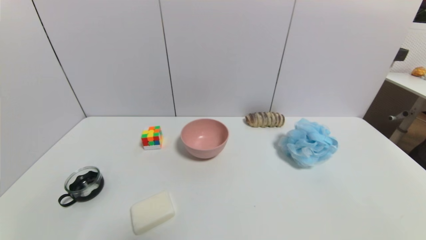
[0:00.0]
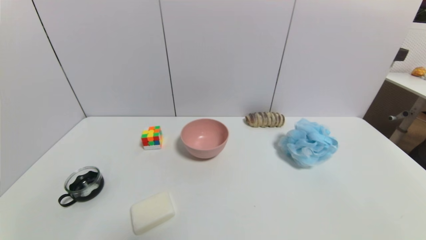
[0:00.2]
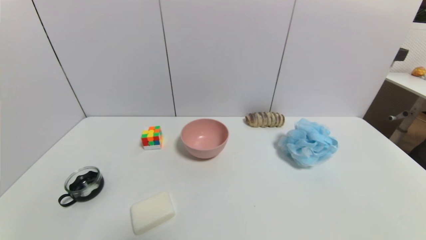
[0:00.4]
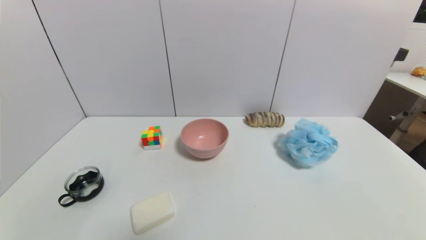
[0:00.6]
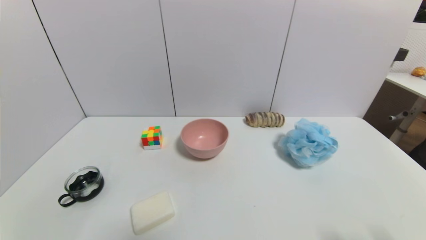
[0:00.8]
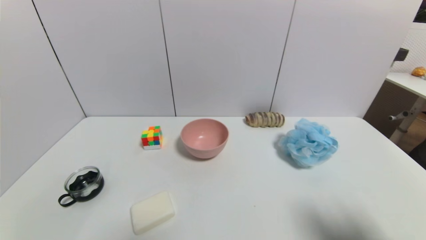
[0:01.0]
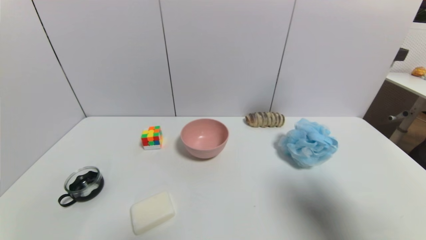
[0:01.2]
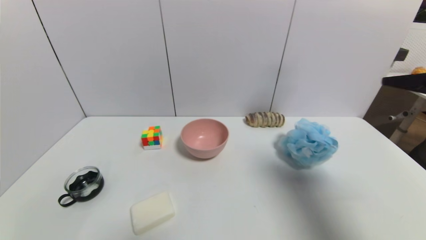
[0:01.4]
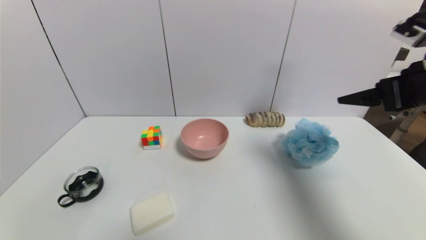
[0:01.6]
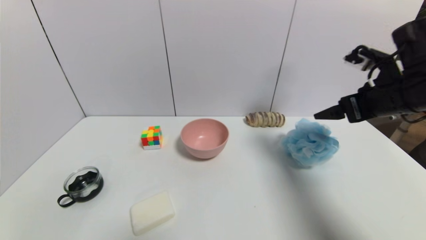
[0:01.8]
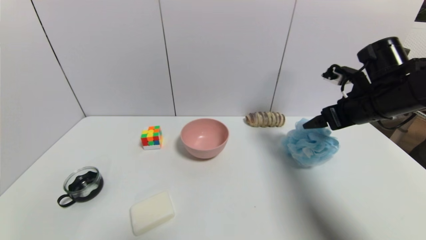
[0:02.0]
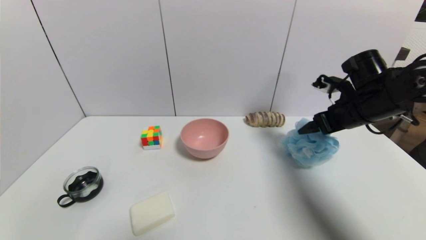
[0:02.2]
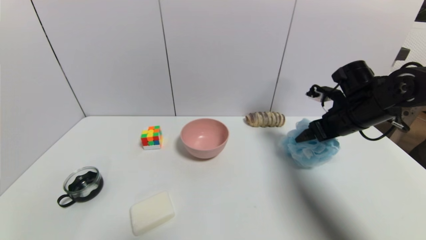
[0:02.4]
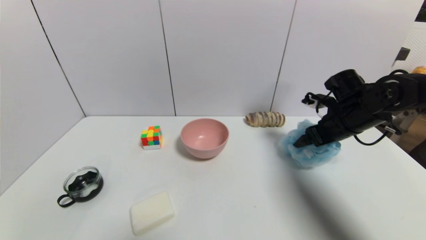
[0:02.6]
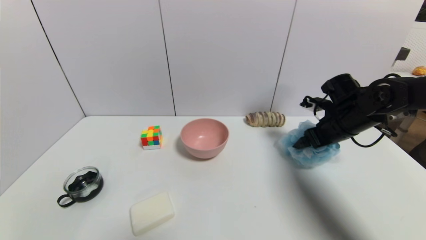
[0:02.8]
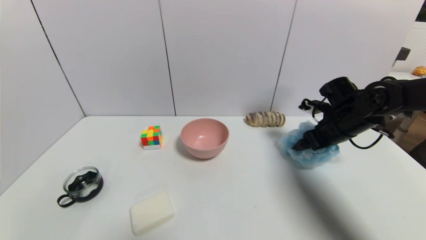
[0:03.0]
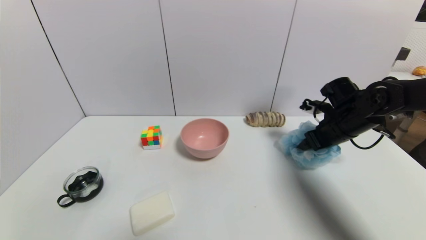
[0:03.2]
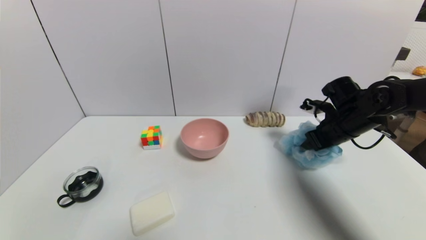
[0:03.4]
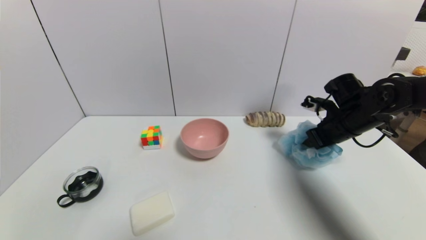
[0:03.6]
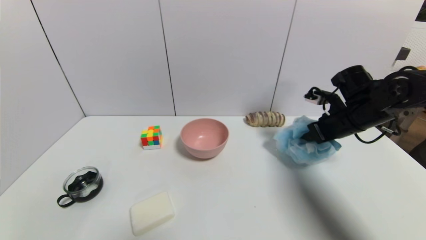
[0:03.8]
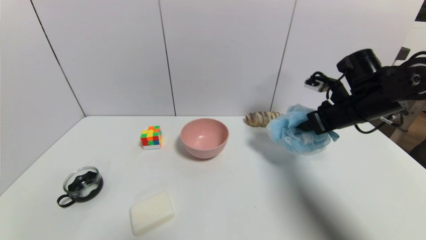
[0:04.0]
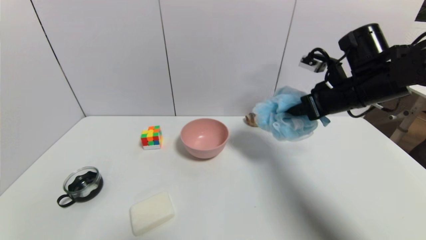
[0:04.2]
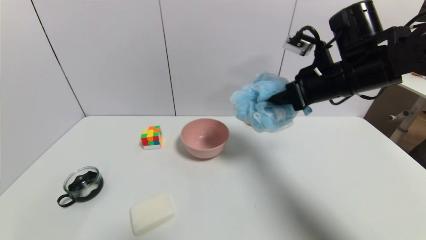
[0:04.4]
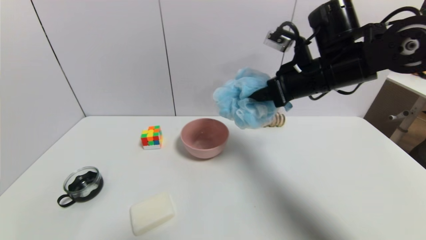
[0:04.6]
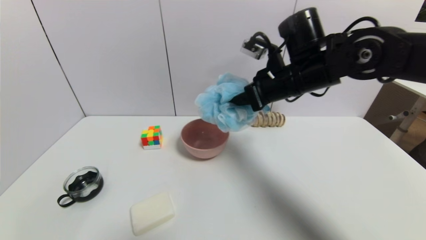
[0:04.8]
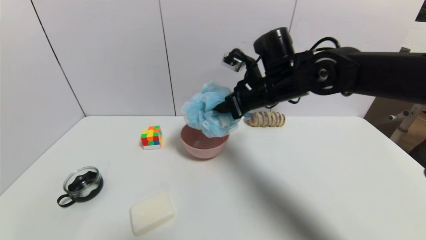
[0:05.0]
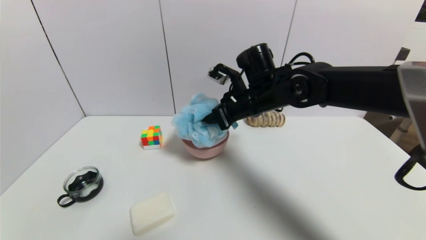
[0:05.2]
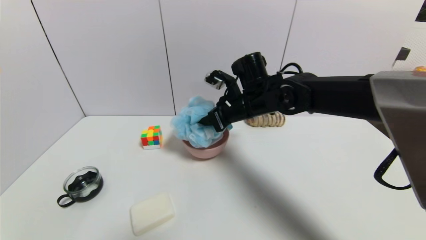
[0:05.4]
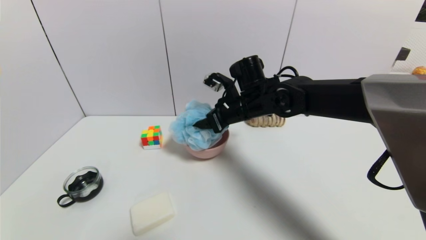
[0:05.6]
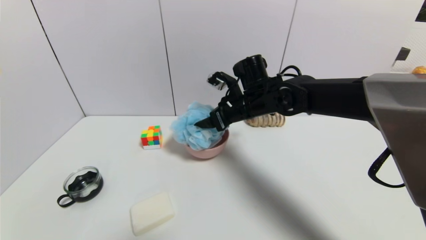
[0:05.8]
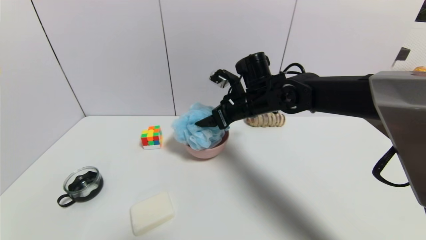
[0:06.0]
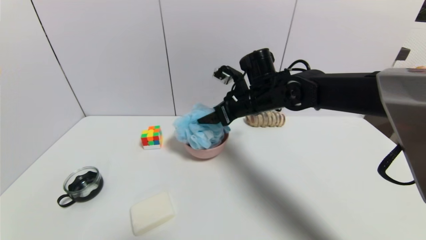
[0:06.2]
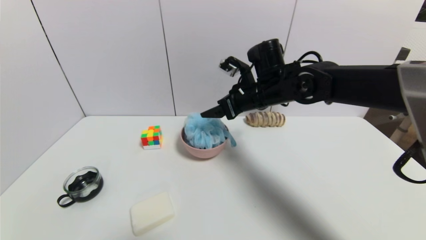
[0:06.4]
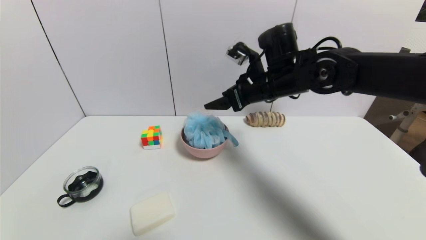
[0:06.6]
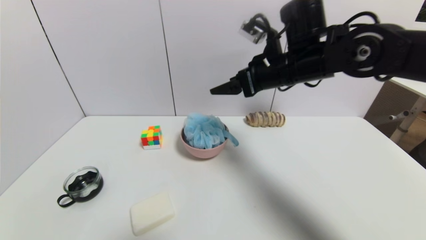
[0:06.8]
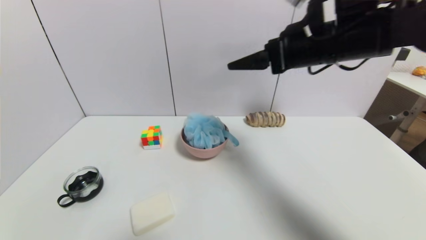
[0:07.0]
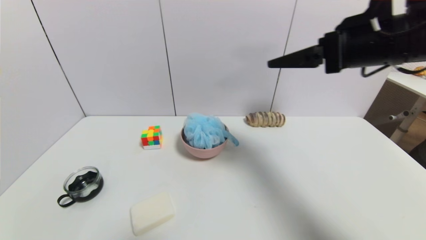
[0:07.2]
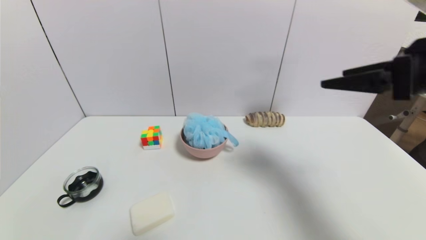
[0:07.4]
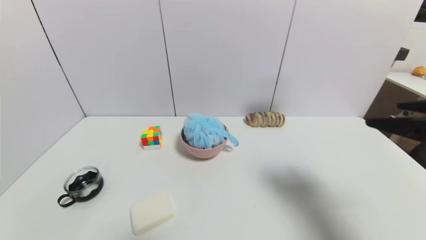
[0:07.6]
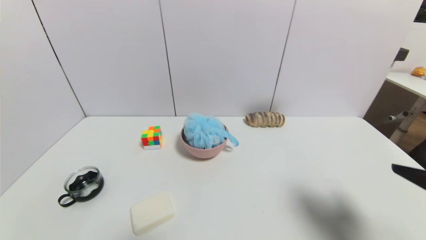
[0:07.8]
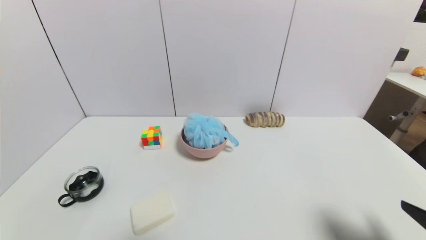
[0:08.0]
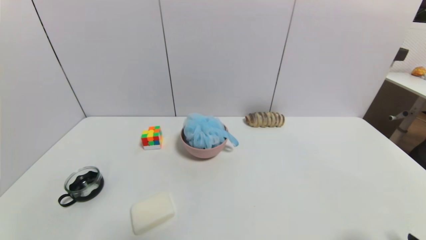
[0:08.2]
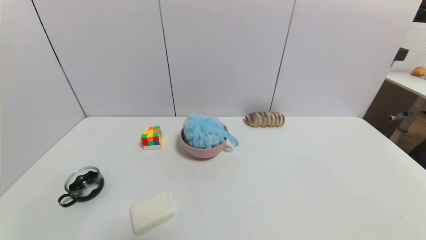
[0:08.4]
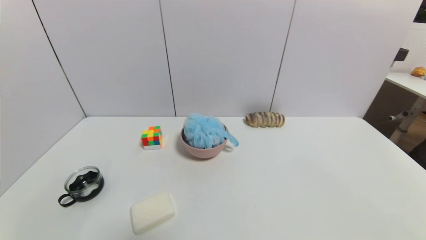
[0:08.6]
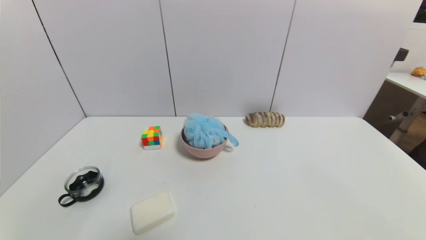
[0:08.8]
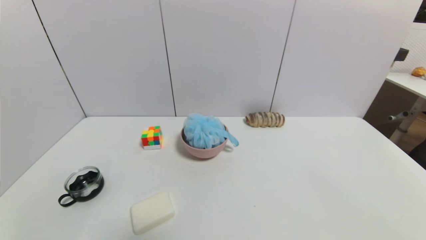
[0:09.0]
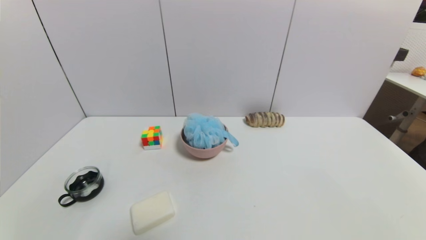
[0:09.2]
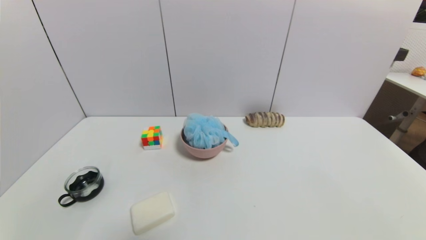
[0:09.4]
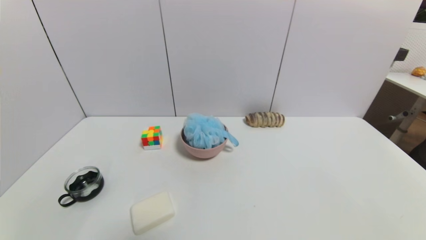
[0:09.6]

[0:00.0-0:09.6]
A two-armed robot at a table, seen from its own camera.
Task of the whole recording: use a gripper to pick the target object and place on the pink bowl.
Step, 0:00.0 to 0:03.2: Grasp the shower sphere with the right gripper.
Step, 0:03.4 to 0:06.4: Place the shower sphere on the pink bowl with the right gripper.
0:00.0 to 0:01.6: The right gripper travels forward and upward by roughly 35 cm.
0:01.6 to 0:03.2: The right gripper travels downward and forward by approximately 20 cm, and closes.
0:03.2 to 0:04.8: The right gripper goes approximately 20 cm to the left and upward, and closes its fingers.
0:04.8 to 0:06.4: The right gripper opens up.
0:06.4 to 0:08.0: The right gripper moves backward and to the right, some 40 cm.
0:08.0 to 0:09.6: The right gripper heads downward and backward, covering about 15 cm.

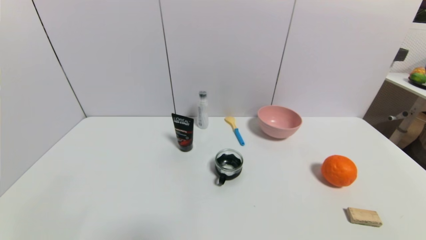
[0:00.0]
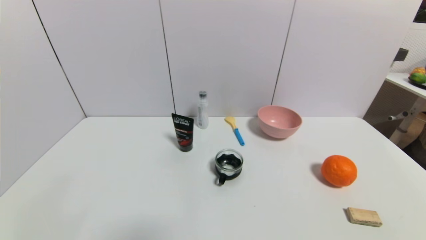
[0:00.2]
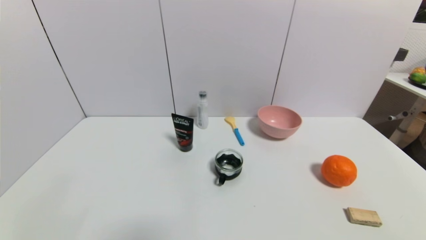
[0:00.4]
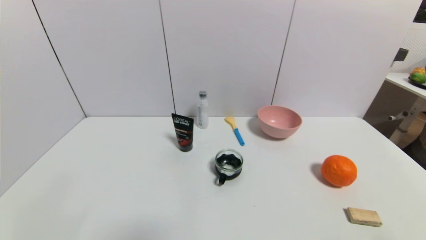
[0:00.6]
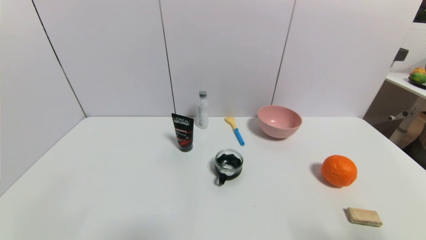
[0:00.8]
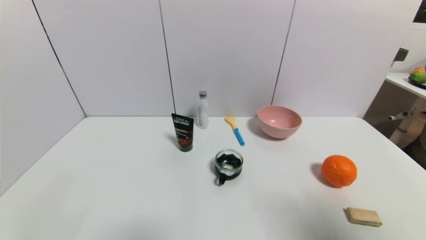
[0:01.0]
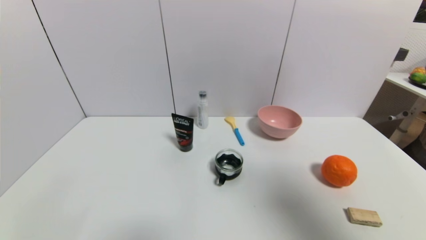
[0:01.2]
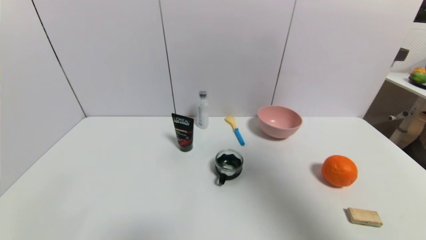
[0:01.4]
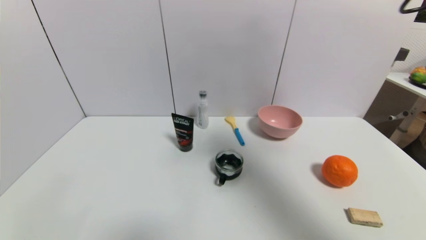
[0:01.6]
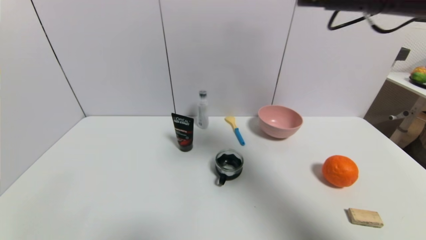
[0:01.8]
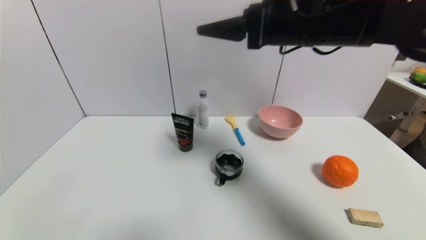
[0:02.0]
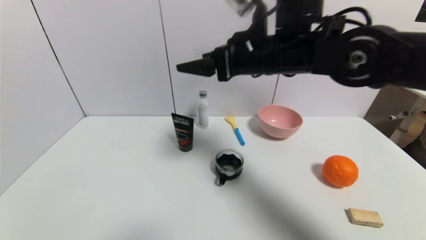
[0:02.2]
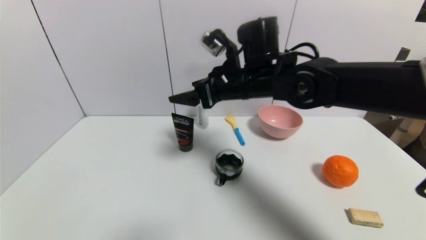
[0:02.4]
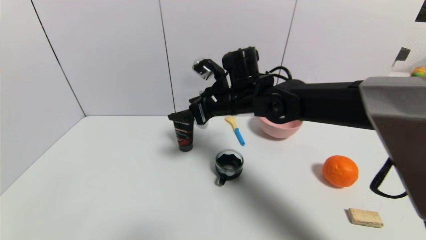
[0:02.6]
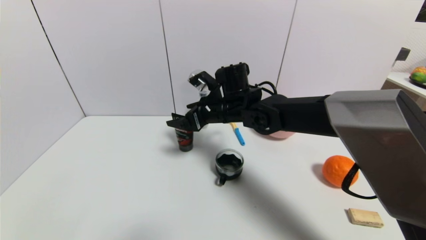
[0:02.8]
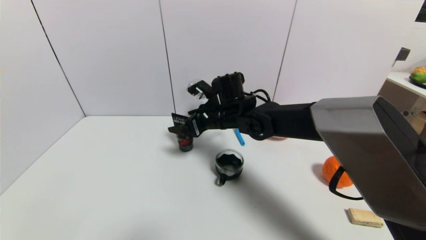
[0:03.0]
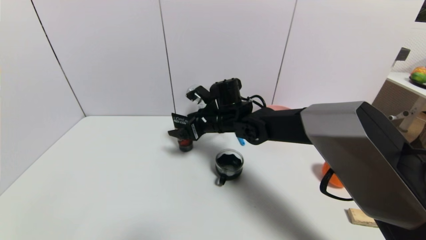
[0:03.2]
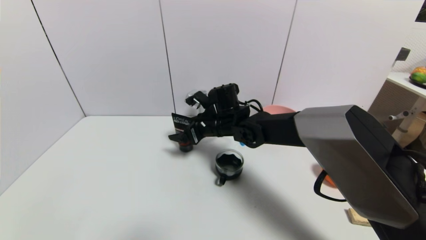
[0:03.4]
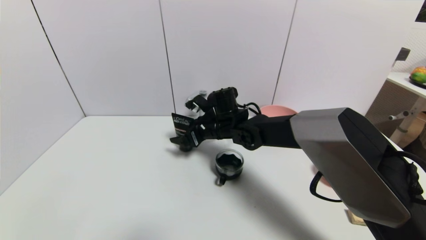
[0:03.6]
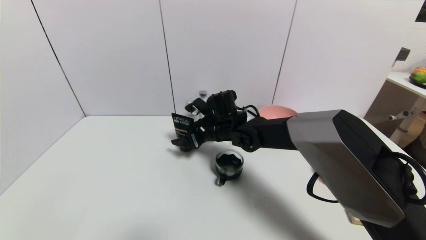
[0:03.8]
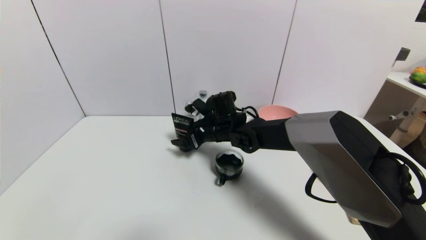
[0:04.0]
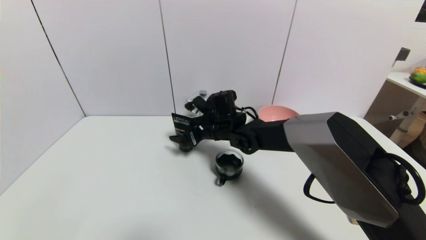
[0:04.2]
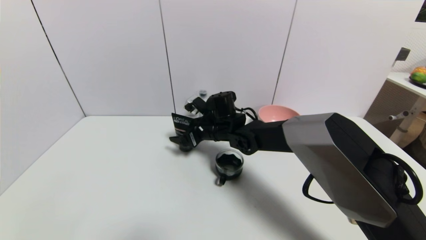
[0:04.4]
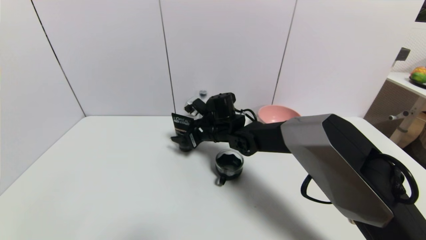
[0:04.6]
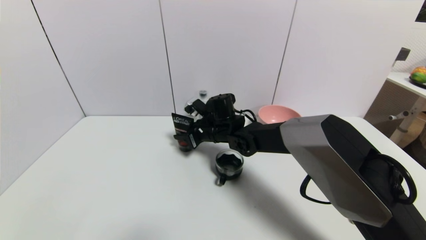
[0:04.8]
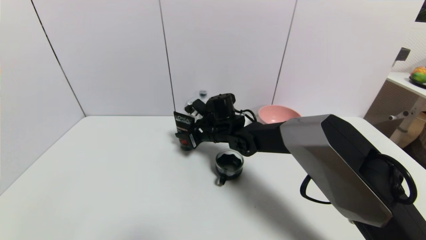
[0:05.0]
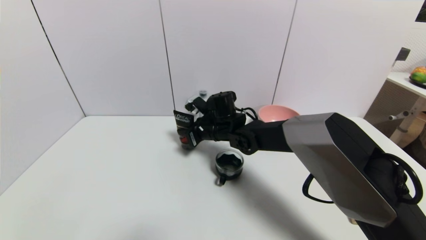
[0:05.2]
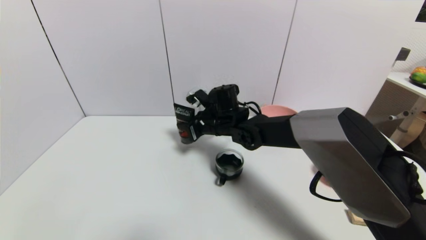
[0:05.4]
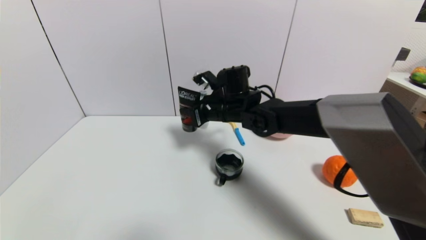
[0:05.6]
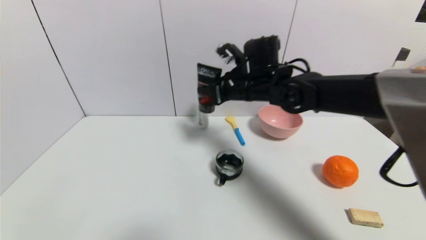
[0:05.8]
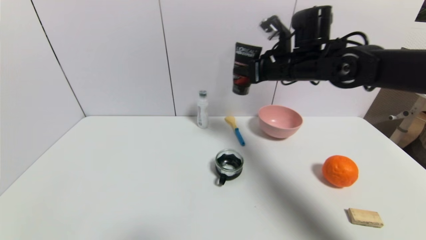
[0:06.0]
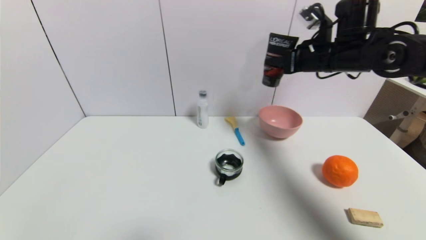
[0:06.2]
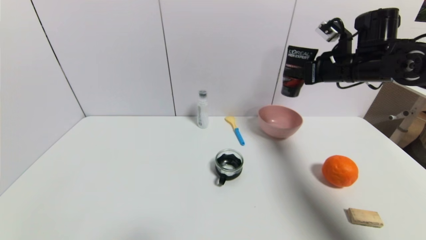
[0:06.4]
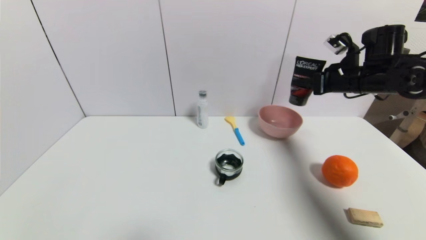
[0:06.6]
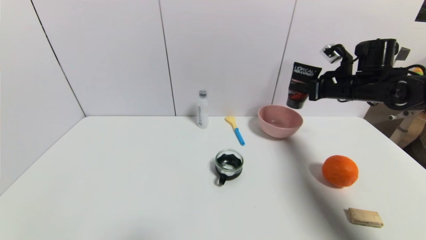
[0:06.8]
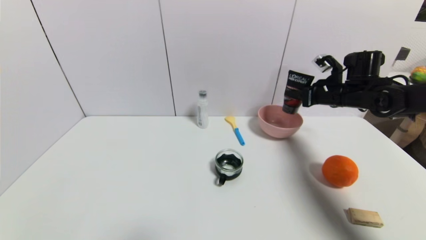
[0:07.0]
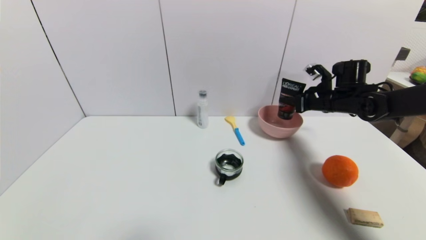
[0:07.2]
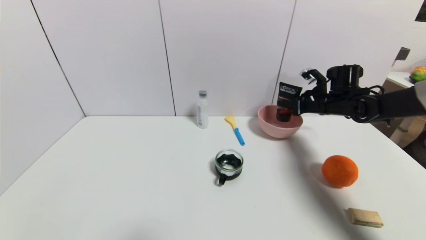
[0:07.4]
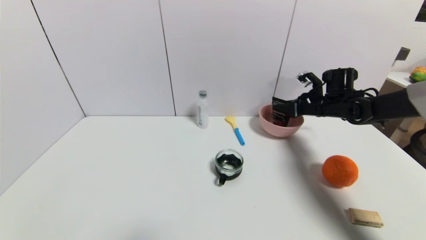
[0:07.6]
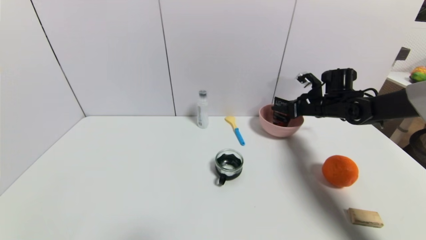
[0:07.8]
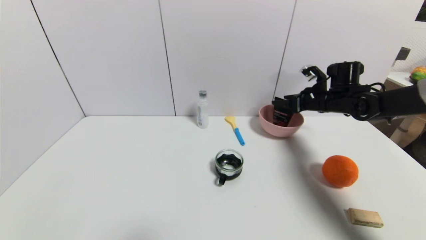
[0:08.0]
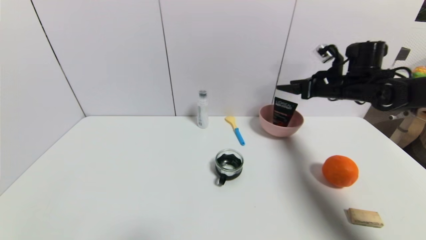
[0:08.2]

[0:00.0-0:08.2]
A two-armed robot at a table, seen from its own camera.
Task of the whole recording: use a gripper to pick the target object and place on the pink bowl.
Step, 0:00.0 to 0:05.2: Grasp the soft facial cleanser with the right gripper.
Step, 0:05.4 to 0:08.0: Place the soft facial cleanser on the pink bowl with the right gripper.
0:00.0 to 0:01.6: The right gripper heads upward and forward, covering some 40 cm.
0:01.6 to 0:03.2: The right gripper travels downward, to the left and forward by about 40 cm.
0:03.2 to 0:05.0: The right gripper closes its fingers.
0:05.0 to 0:06.6: The right gripper moves to the right and upward, approximately 35 cm.
0:06.6 to 0:08.2: The right gripper reaches some 10 cm downward, then returns, and opens.
